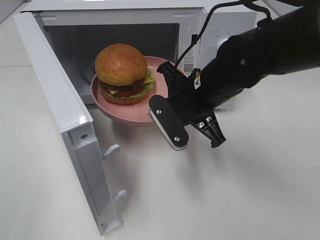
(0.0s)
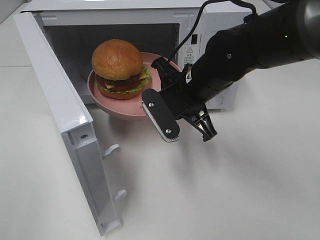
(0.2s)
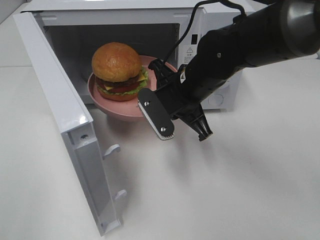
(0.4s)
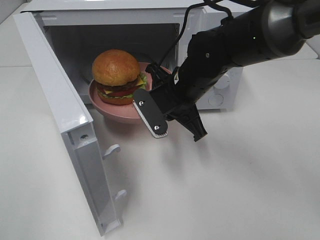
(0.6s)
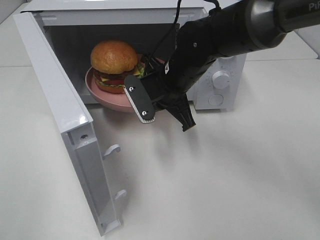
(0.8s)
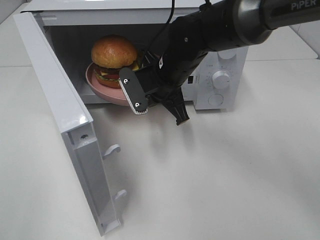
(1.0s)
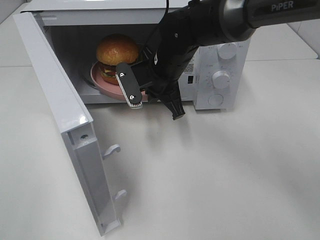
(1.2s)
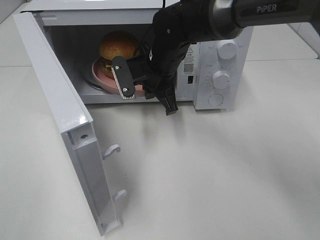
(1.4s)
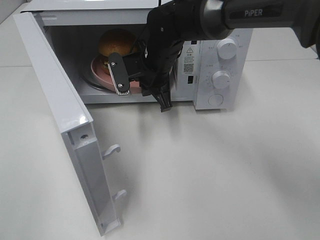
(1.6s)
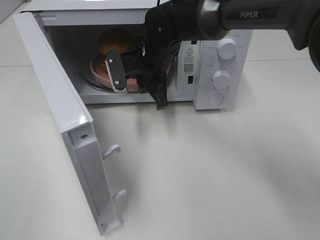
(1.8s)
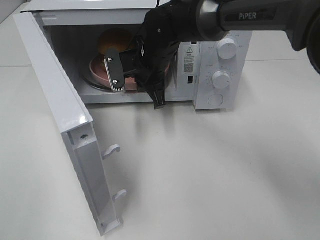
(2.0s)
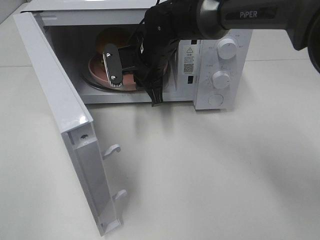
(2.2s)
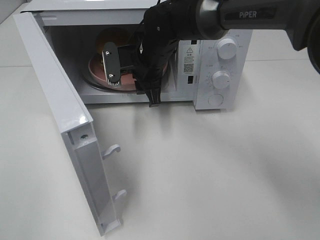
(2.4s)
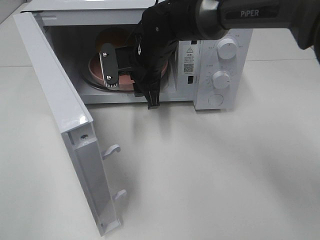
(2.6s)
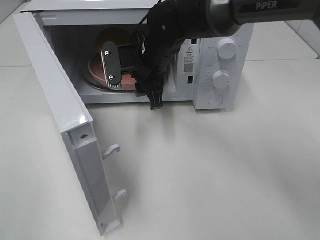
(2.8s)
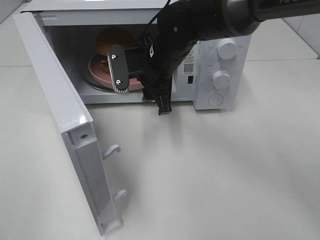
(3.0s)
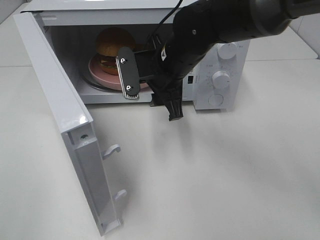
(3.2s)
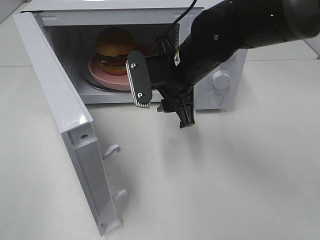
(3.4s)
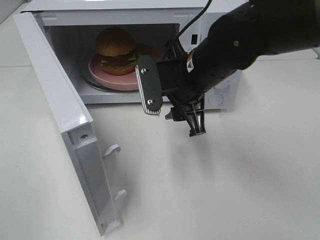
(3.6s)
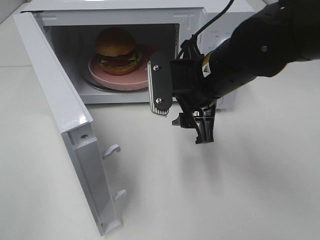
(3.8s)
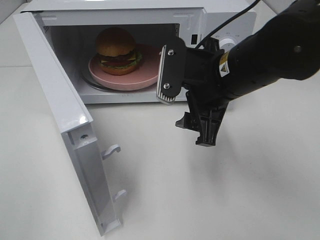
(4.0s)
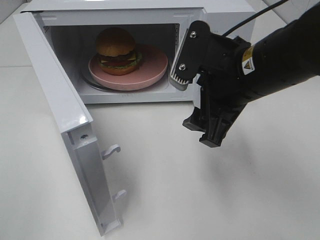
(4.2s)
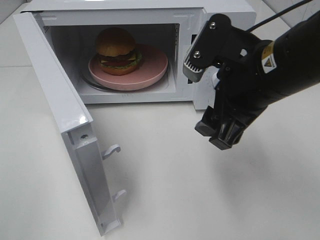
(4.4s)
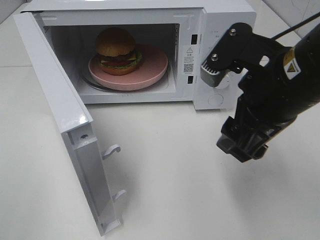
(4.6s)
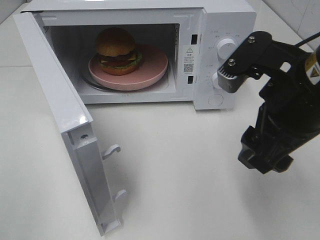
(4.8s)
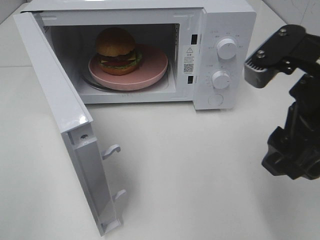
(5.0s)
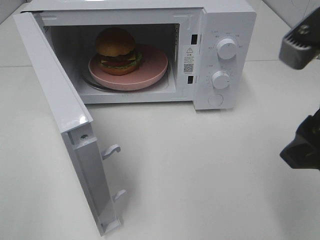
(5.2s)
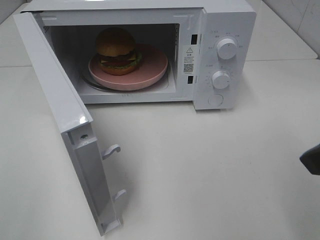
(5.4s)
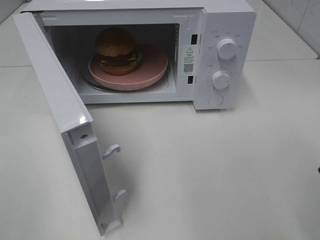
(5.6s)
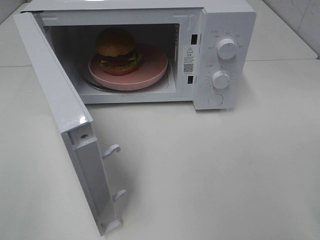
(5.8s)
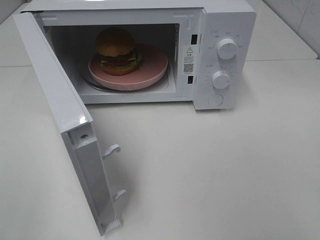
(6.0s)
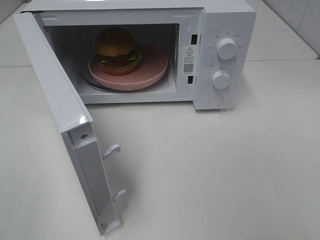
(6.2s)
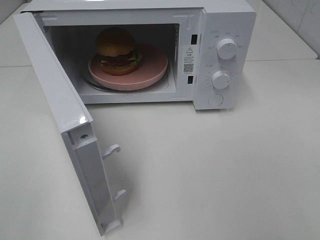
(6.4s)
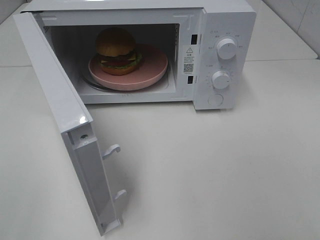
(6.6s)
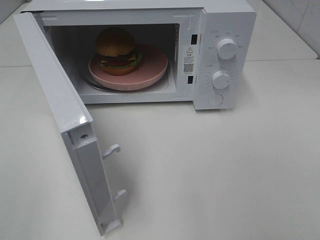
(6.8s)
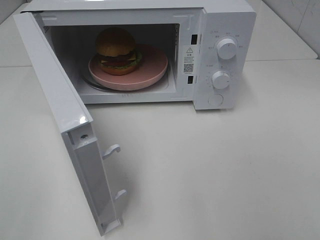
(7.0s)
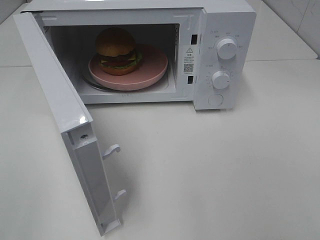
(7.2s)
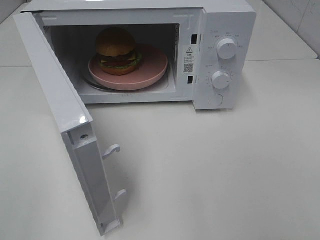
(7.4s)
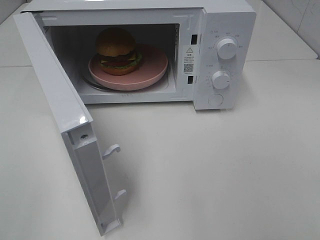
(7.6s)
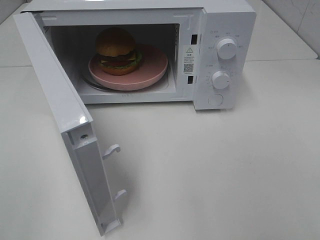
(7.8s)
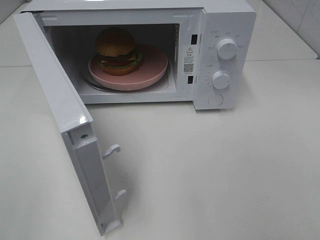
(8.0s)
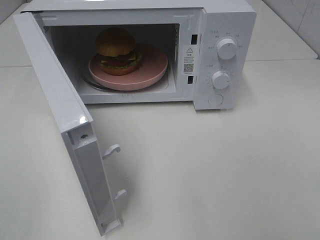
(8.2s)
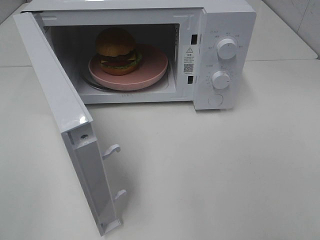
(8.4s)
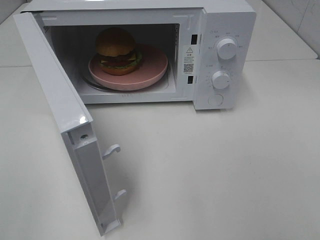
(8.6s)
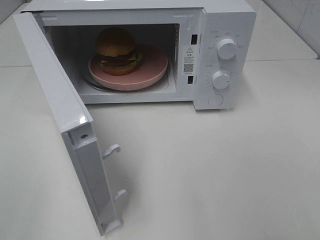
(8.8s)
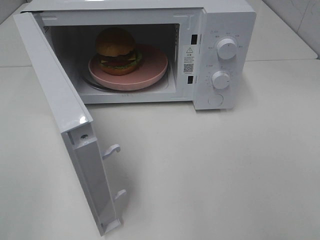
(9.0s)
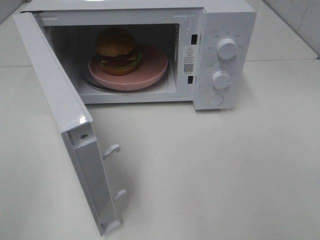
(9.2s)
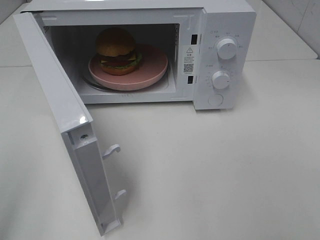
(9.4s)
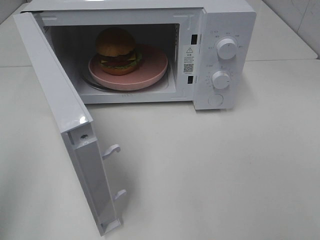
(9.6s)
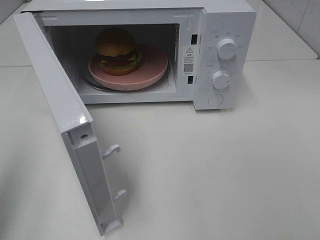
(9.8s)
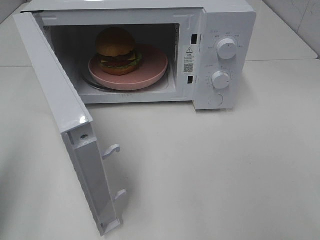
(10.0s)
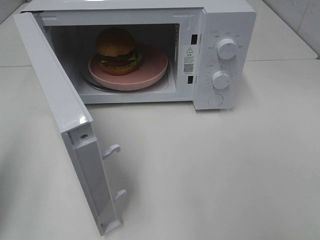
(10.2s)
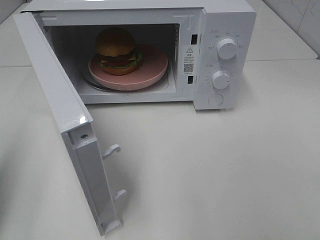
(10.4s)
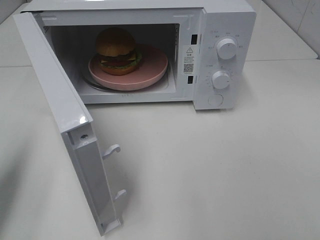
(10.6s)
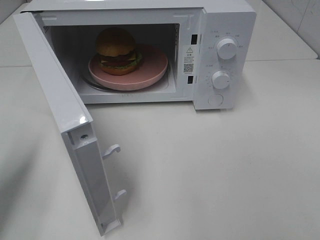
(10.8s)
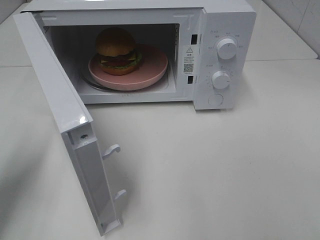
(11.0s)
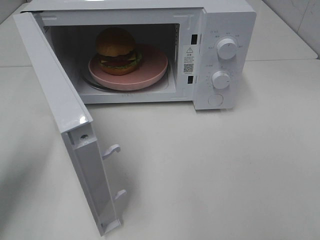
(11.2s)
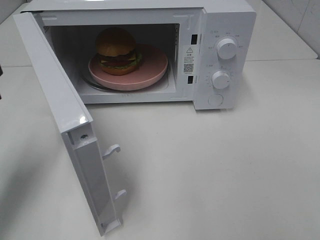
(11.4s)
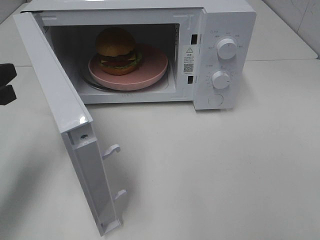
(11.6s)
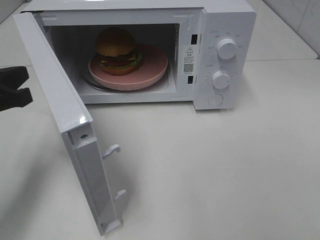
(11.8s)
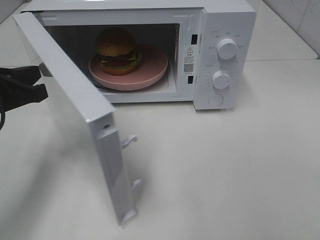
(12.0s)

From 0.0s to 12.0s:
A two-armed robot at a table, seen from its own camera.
Task of the whole recording: Heat the burger.
Step, from 0.0s to 2.2s: Right hand: place the plate in the microwave.
From 0.0s to 1.6s: The right gripper shifts about 15 cm forward and to the left.
From 1.6s to 3.0s: The right gripper opens its fingers.
From 3.0s to 4.4s: The right gripper heads backward, to the right and upward, covering approximately 20 cm.
From 4.4s to 6.0s: The right gripper shifts roughly 20 cm to the right and backward.
From 9.0s to 10.4s: The left gripper shifts approximately 15 cm forward and downward, and closes its fingers.
From 10.4s to 12.0s: The left gripper goes some 15 cm forward, to the right and downward.

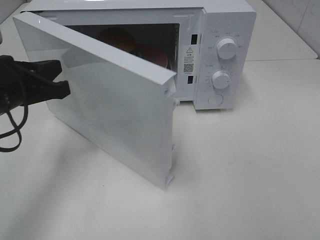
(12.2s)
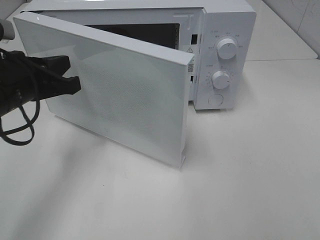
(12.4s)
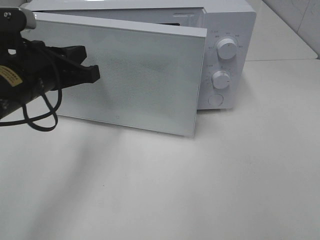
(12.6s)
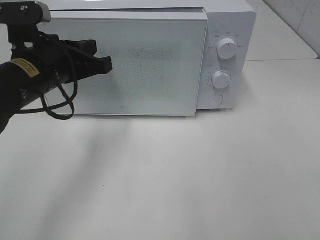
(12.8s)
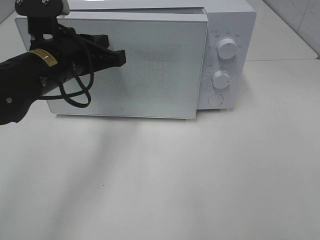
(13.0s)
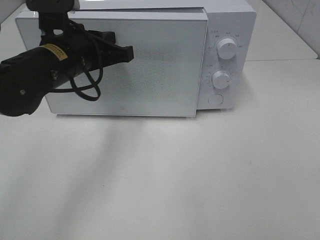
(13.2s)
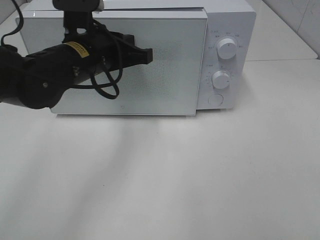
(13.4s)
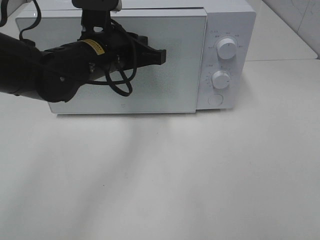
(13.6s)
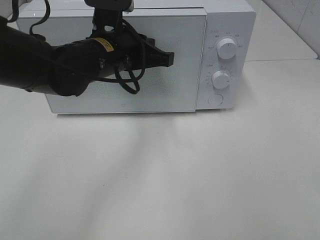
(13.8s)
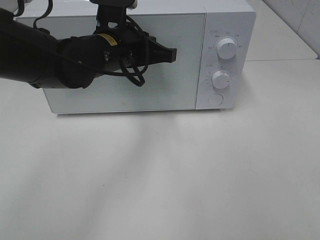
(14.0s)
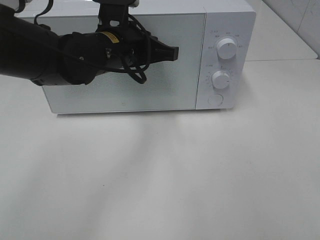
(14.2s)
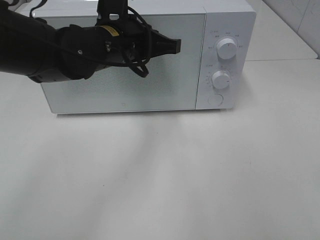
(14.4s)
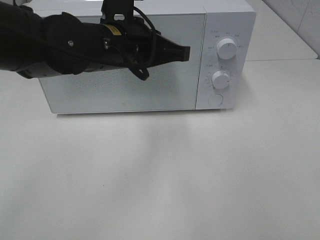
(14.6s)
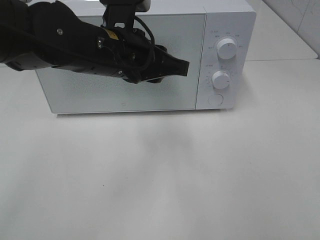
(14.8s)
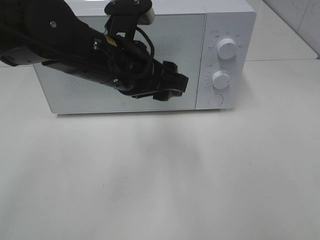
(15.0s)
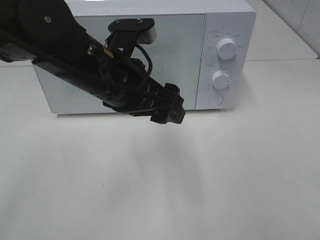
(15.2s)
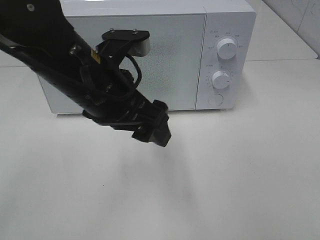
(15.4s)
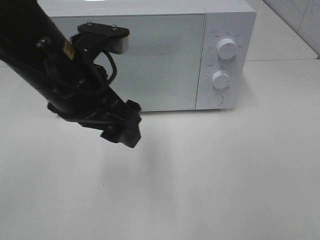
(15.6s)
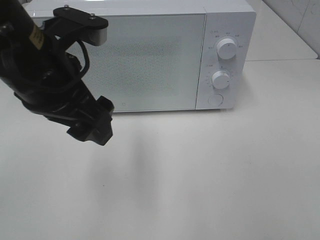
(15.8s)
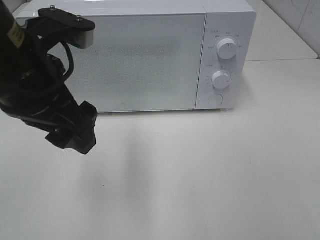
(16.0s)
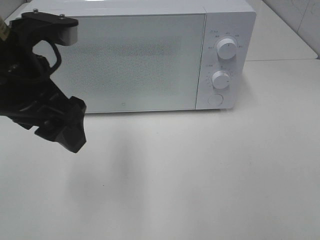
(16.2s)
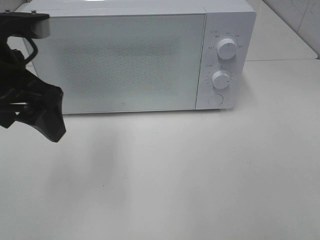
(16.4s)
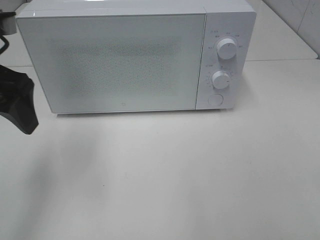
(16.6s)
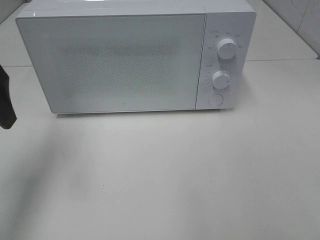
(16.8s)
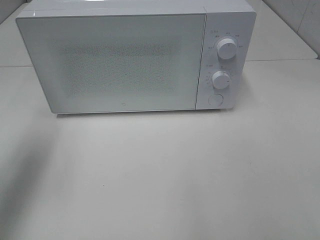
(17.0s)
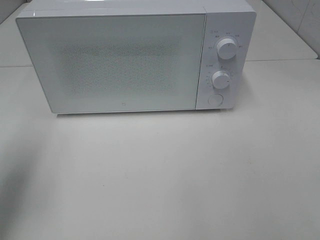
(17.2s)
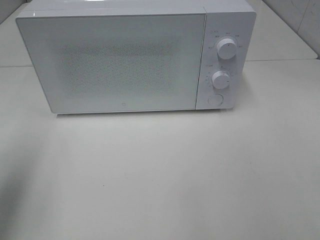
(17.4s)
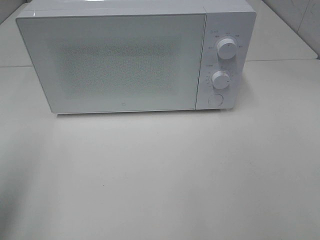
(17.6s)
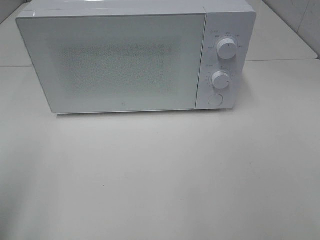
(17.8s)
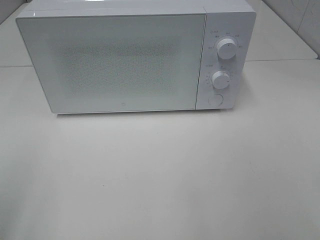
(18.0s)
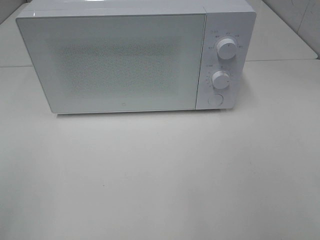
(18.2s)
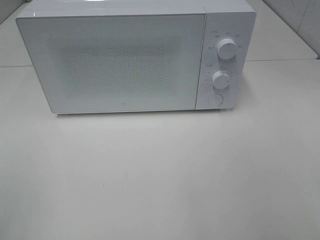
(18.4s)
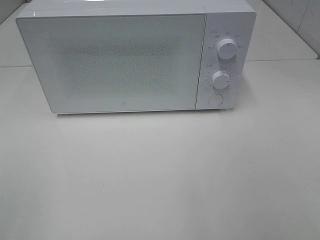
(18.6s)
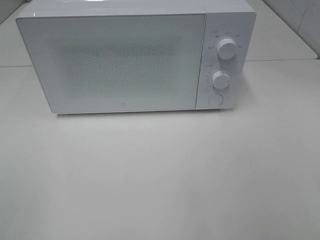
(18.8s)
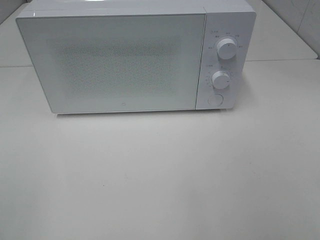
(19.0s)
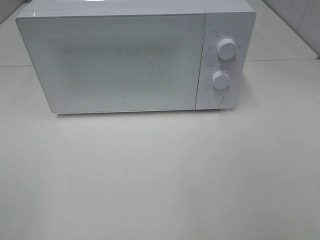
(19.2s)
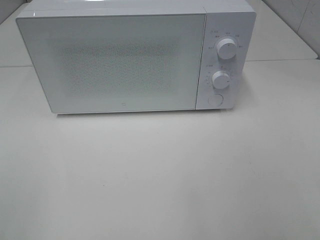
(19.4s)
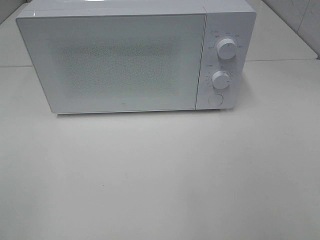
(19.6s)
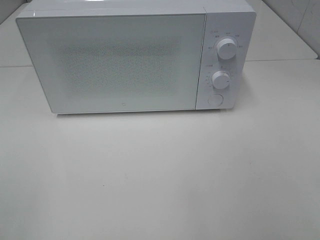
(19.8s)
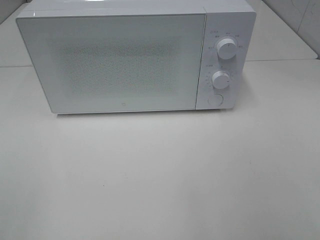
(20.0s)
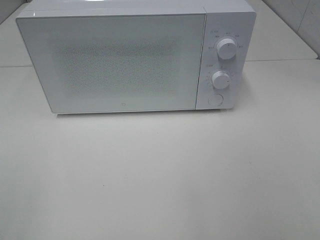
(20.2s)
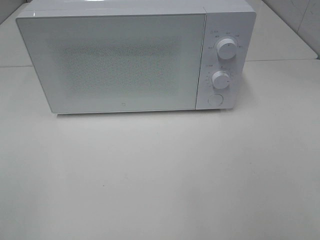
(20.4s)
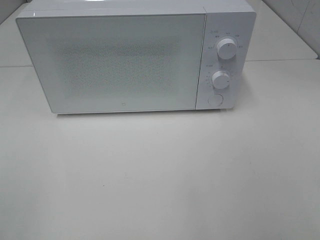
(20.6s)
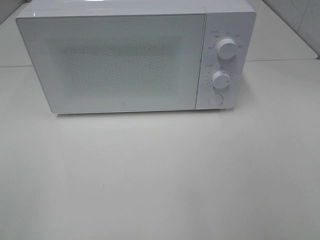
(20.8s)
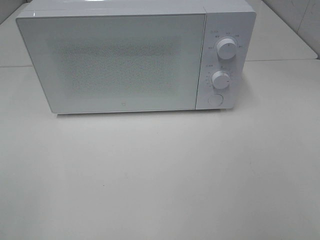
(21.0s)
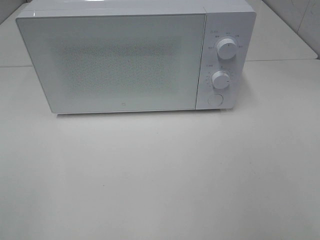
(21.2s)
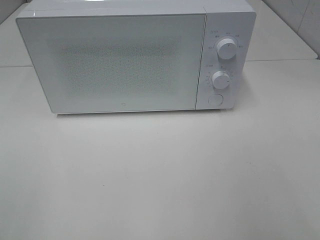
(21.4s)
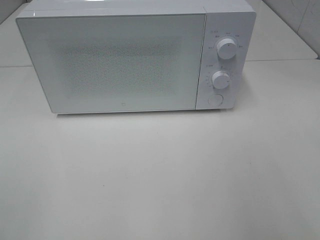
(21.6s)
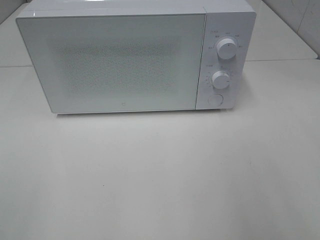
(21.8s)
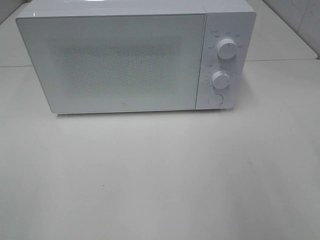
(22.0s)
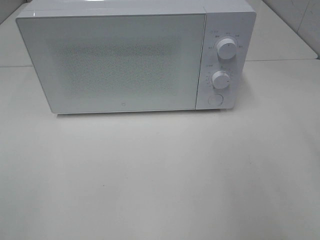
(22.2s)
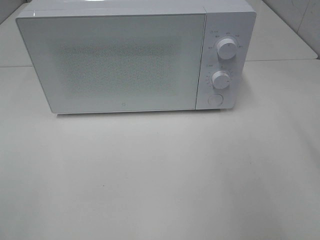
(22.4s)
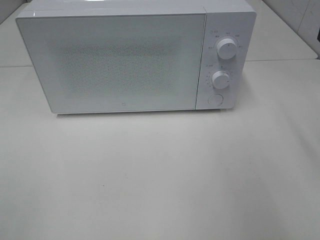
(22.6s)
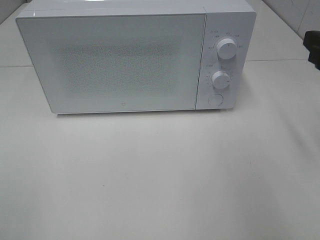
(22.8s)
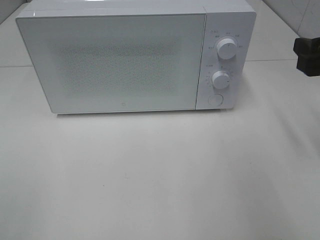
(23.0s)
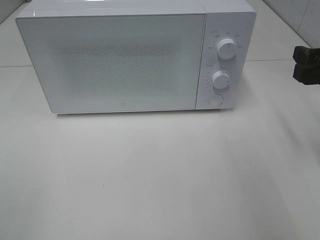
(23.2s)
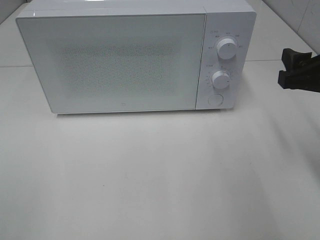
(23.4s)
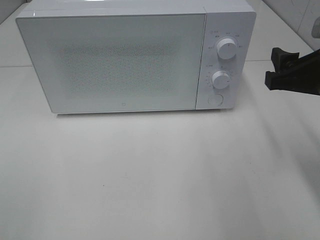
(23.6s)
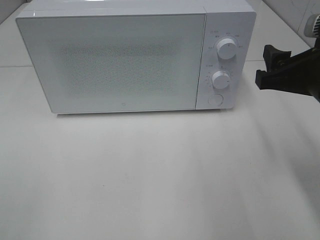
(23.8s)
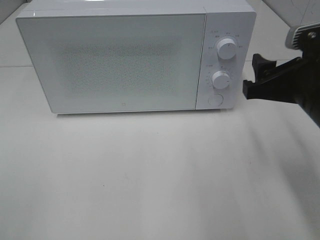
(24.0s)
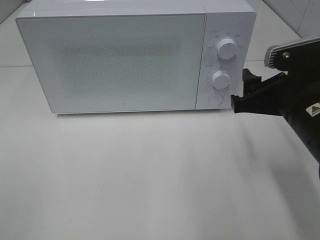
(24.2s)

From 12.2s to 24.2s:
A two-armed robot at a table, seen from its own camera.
Task of the whole recording: Heat the burger.
Step, from 12.2s to 14.2s: Left hand: close the microwave door.
From 12.2s to 13.8s: The left gripper heads to the right and forward, covering some 15 cm.
From 13.8s to 15.2s: The left gripper shifts roughly 10 cm backward, and opens its fingers.
From 15.2s to 16.6s: The left gripper goes roughly 15 cm to the left.
From 16.6s to 18.2s: The left gripper shifts about 25 cm backward and to the left.
From 22.6s to 24.2s: The right gripper moves to the left and downward, some 10 cm.
